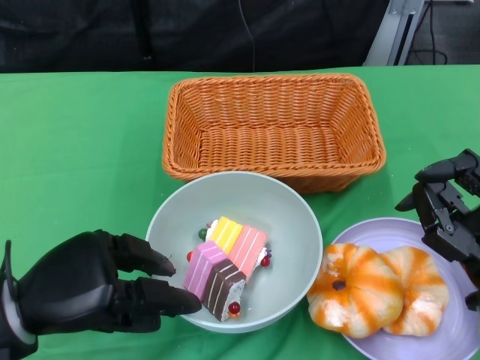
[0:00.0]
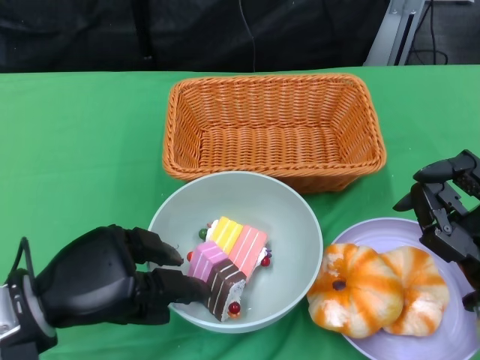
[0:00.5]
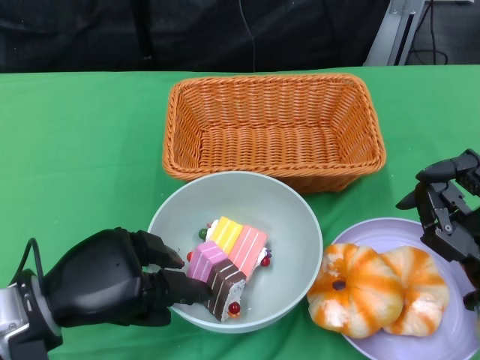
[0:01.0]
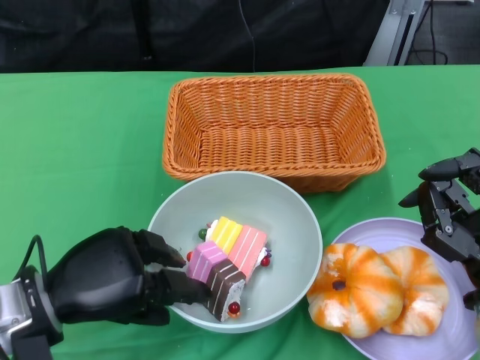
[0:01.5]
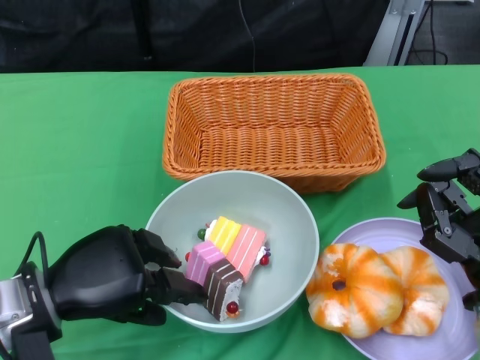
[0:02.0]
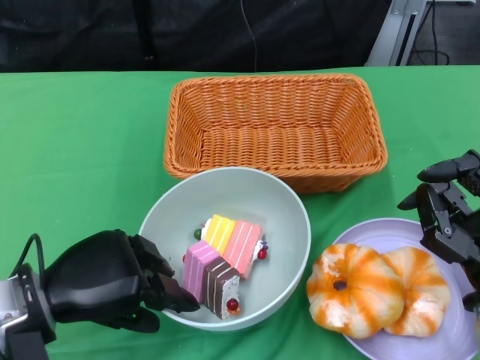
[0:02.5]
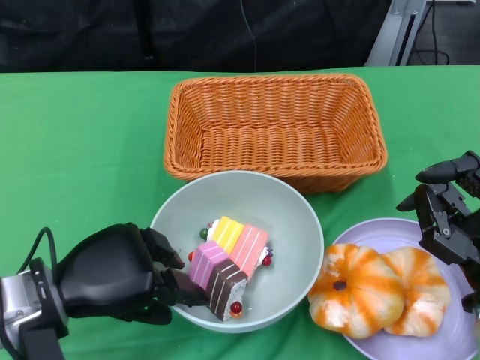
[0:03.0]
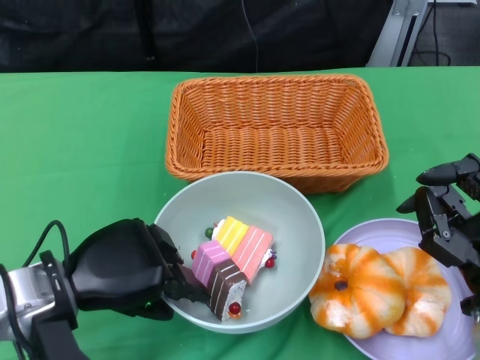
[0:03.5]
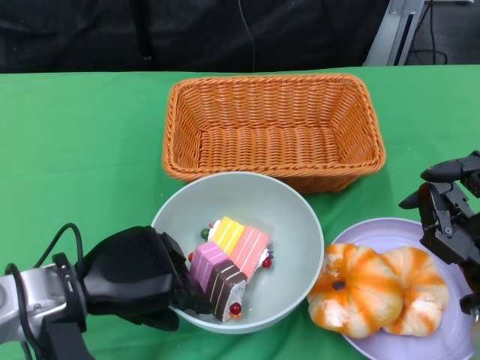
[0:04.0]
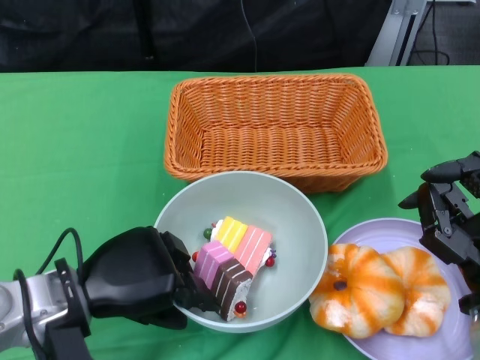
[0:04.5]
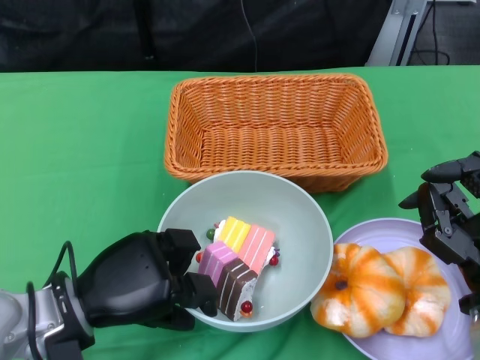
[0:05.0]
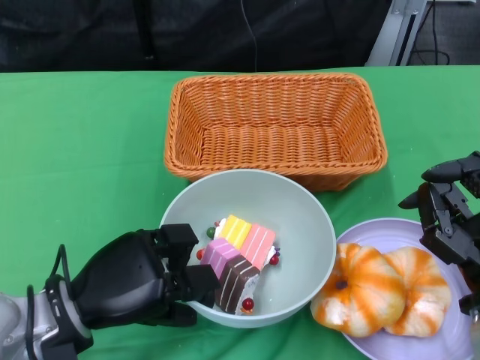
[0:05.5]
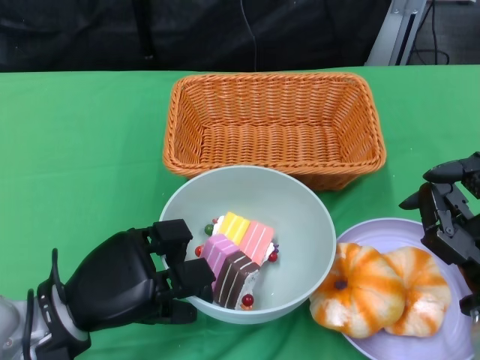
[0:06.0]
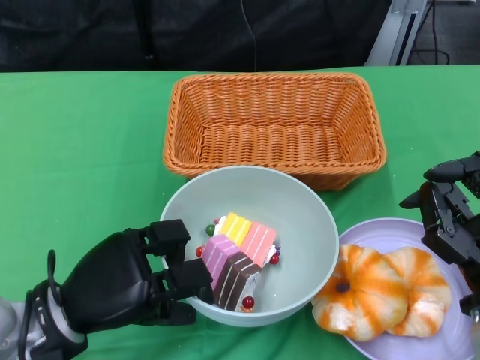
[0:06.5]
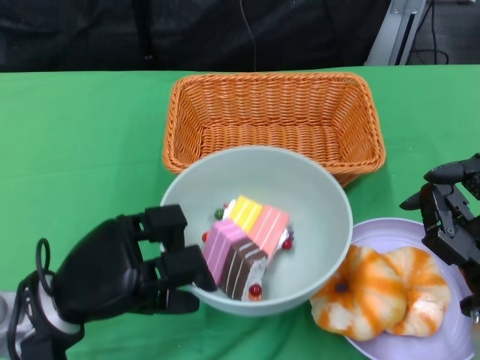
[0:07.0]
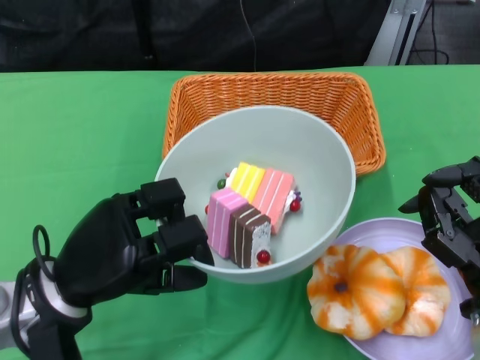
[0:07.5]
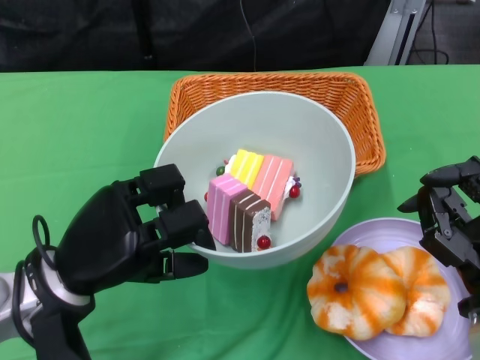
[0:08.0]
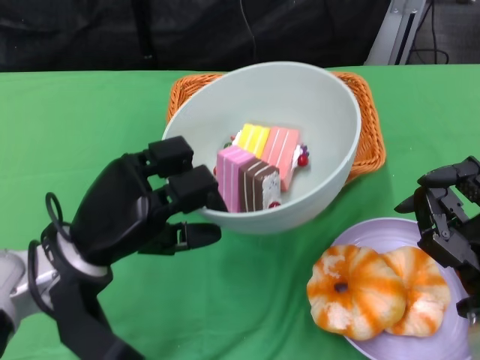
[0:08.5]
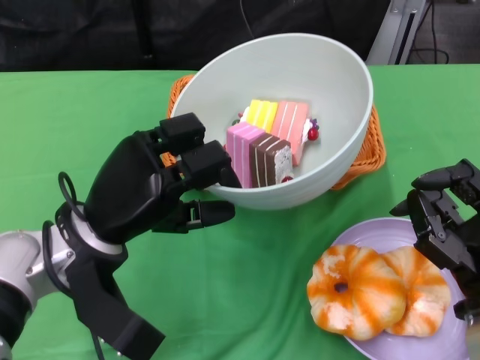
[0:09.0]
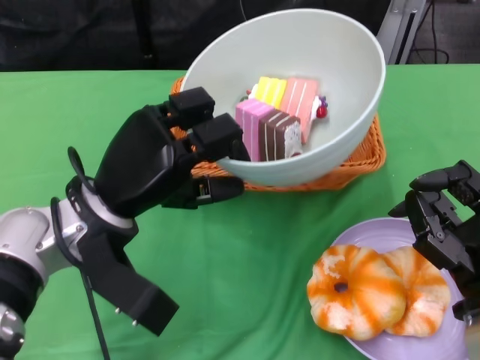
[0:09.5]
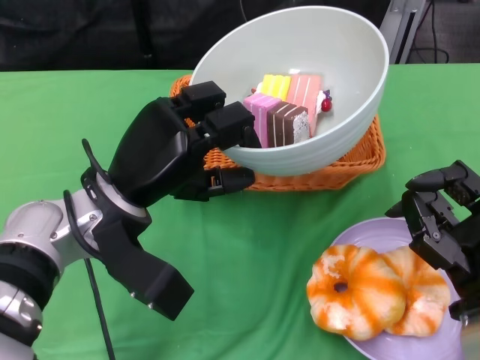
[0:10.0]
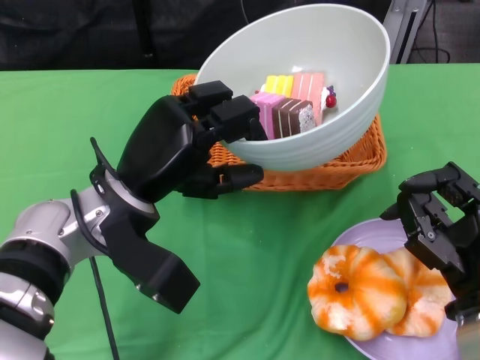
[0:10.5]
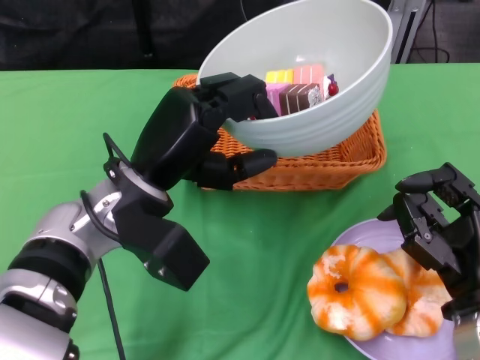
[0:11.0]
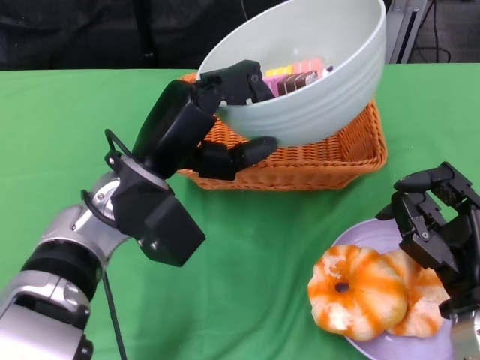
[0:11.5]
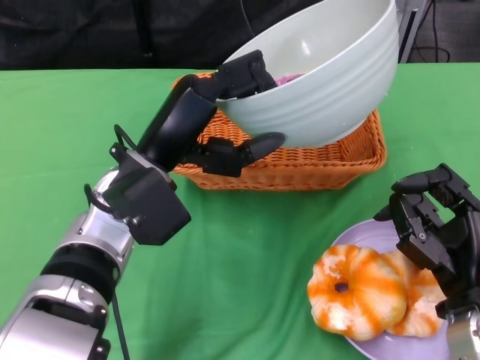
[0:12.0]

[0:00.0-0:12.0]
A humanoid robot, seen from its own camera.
Step, 0:00.0 to 0:06.0: Grasp the bowl with the left gripper.
0:00.0 to 0:04.0: The hands move only a little.
0:08.0 to 0:10.0: The left hand travels to the right and forward by approximately 5 cm.

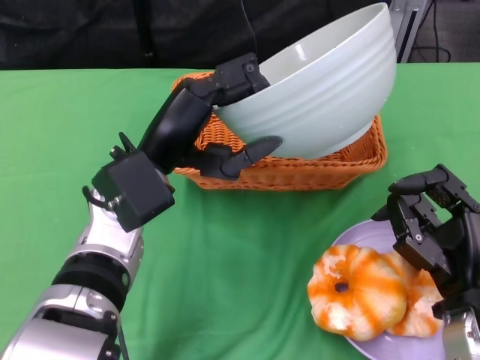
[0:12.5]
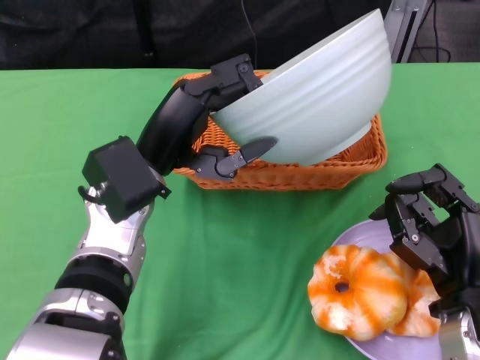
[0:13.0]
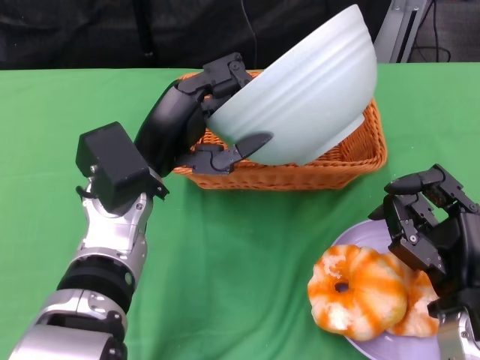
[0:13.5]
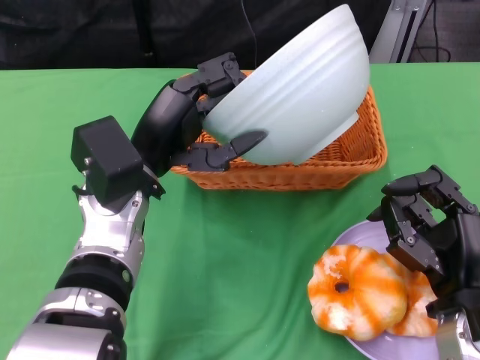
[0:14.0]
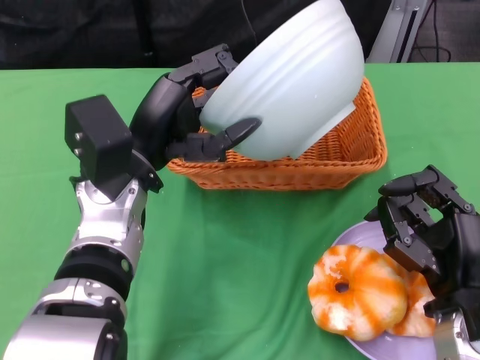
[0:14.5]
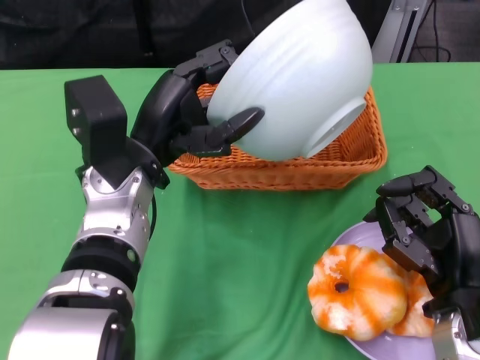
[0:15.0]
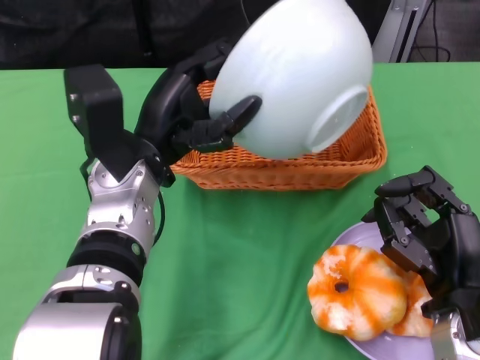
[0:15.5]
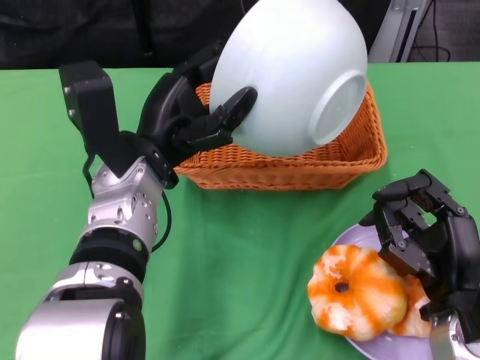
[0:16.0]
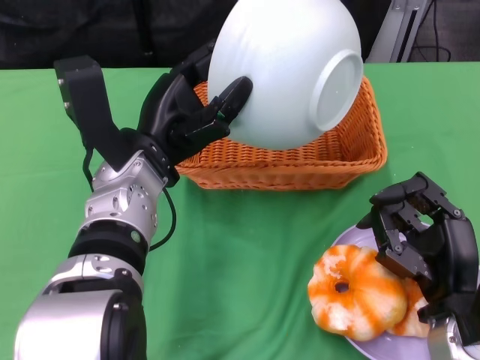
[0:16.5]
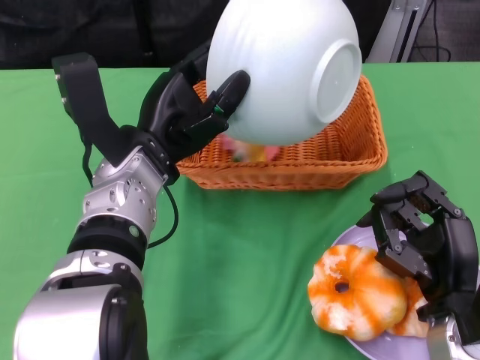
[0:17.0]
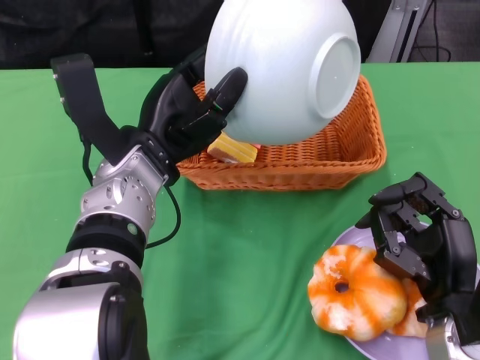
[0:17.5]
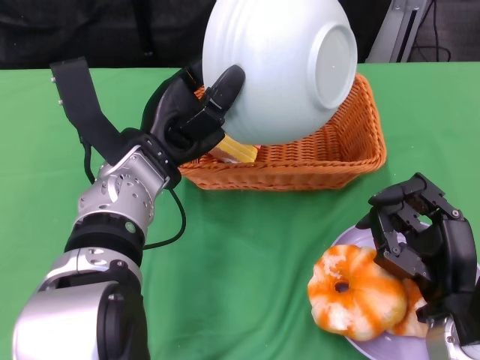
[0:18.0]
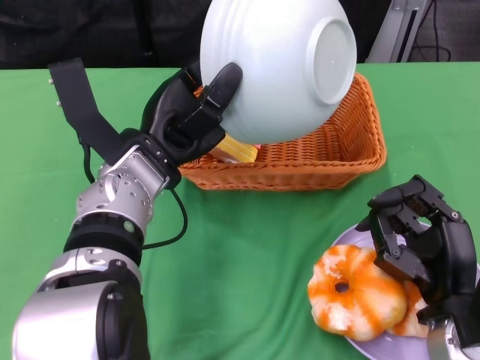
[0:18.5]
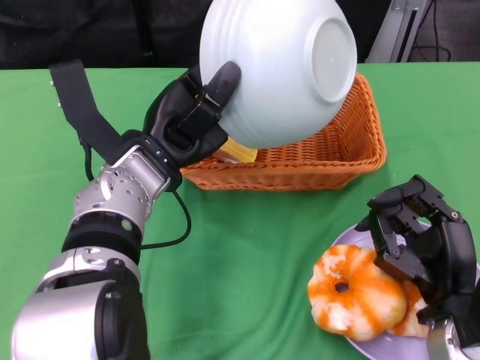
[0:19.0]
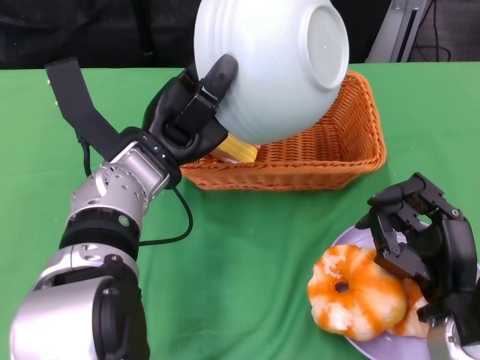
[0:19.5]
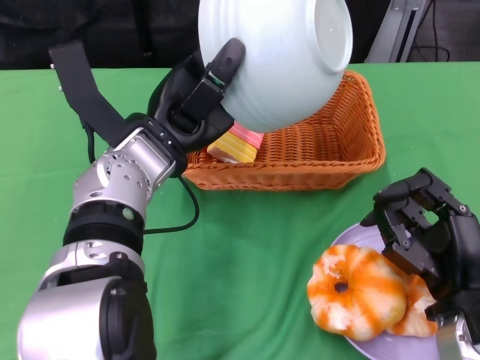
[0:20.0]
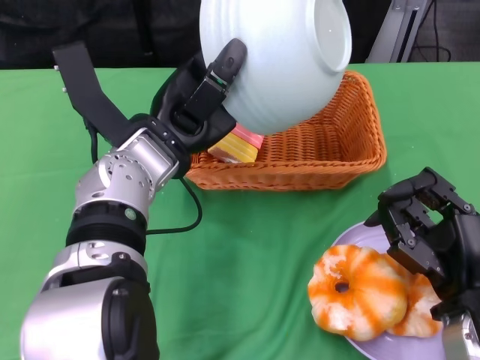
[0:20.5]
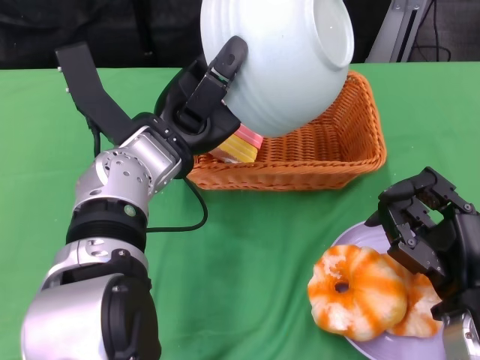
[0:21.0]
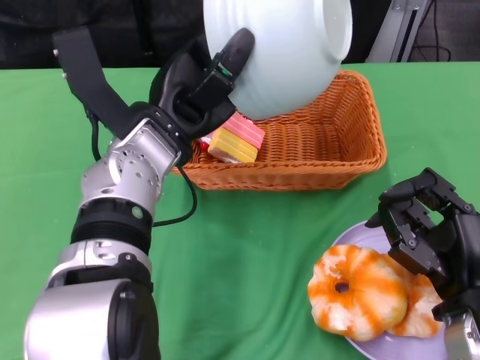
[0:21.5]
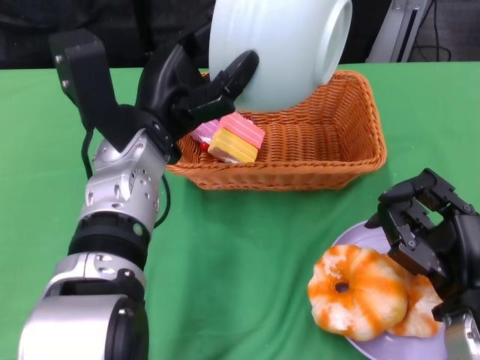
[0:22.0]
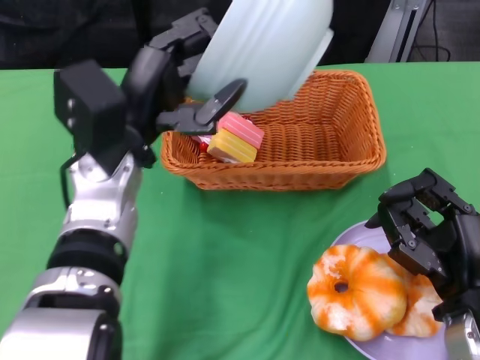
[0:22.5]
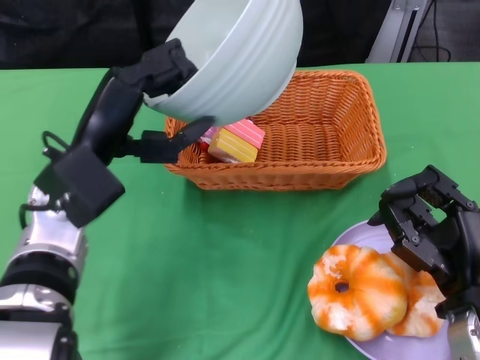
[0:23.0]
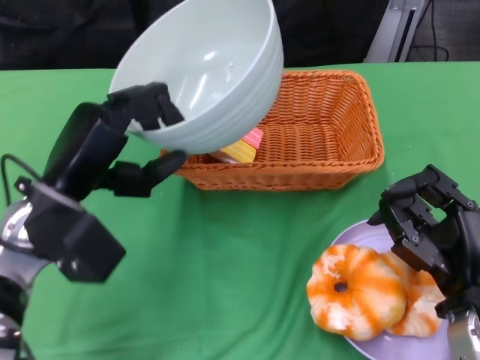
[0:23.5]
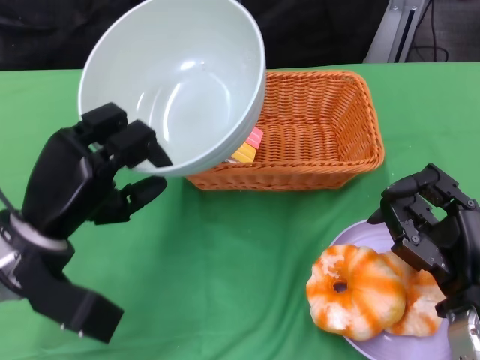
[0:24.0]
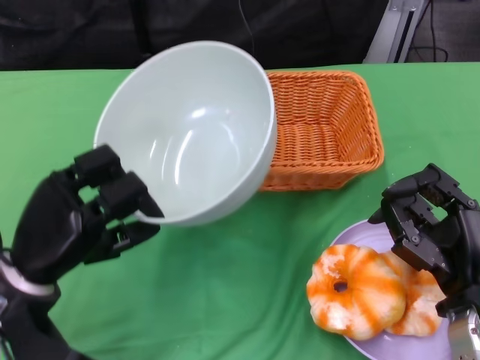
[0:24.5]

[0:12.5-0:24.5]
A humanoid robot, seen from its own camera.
Step, 0:12.5 to 0:20.0: Pour the cake into the basket with the left gripper.
0:16.5 to 0:18.5: There are only small adjustments of the hands.
0:22.5 to 0:24.5: The left hand is displaced to the left, downward and backward by some 15 cm.

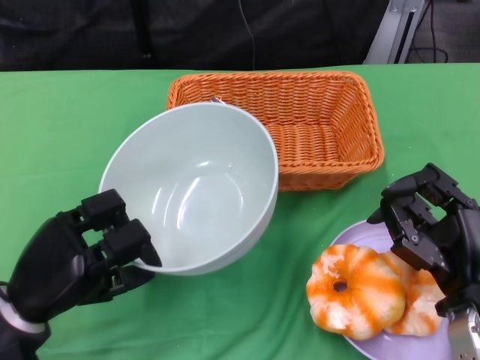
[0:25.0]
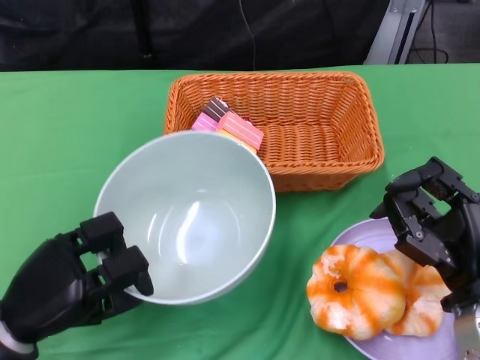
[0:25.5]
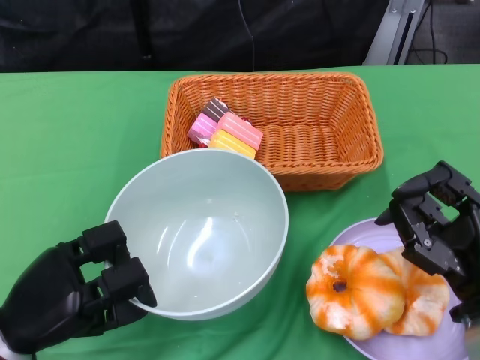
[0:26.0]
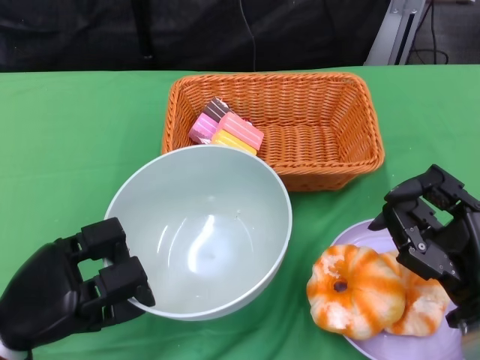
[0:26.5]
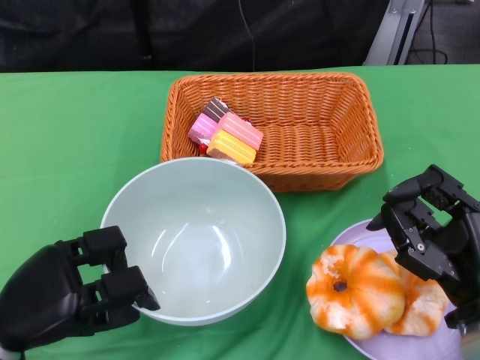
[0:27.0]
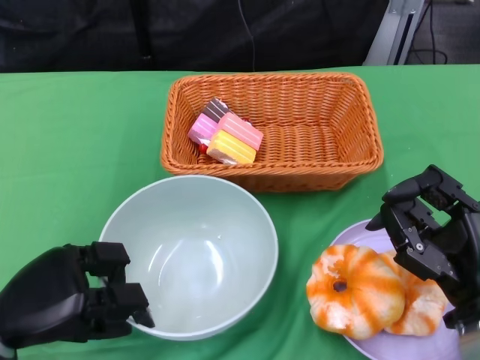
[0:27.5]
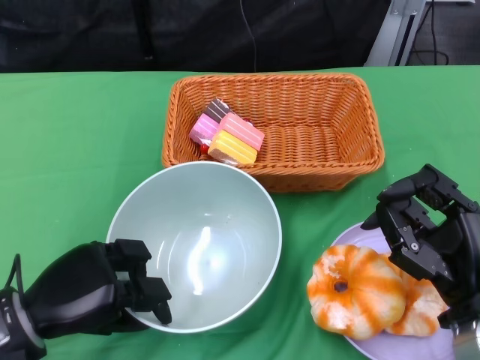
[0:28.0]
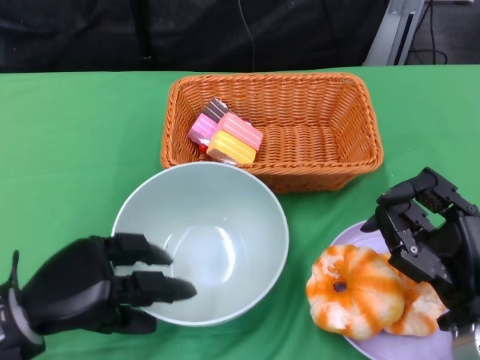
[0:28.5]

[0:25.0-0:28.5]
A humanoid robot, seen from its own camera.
0:27.0 to 0:28.5: The hands stay close to where they were, moving slightly.
